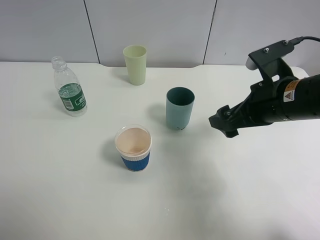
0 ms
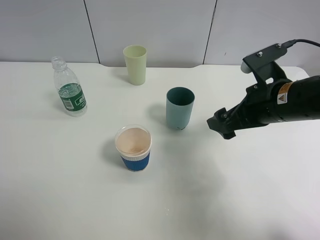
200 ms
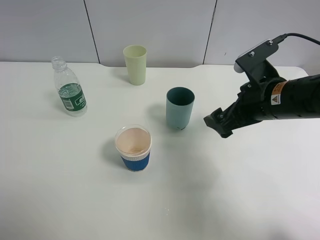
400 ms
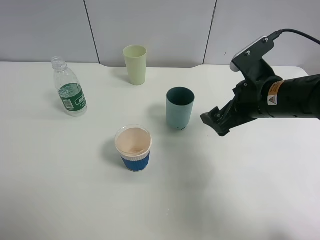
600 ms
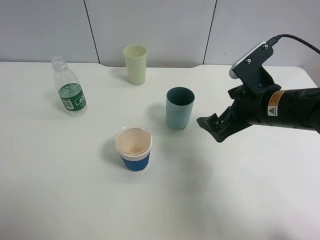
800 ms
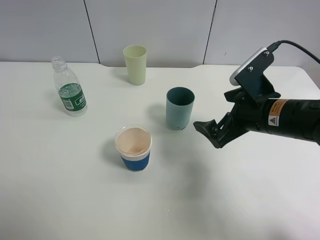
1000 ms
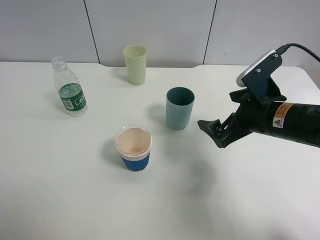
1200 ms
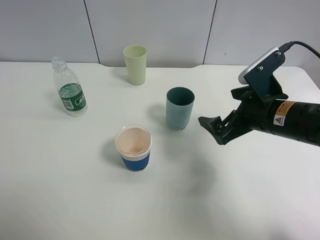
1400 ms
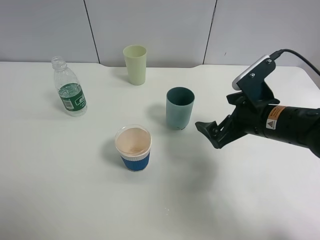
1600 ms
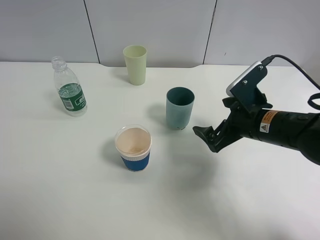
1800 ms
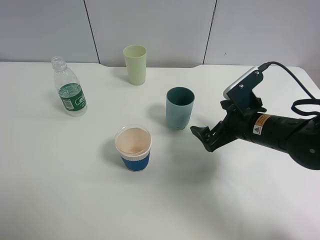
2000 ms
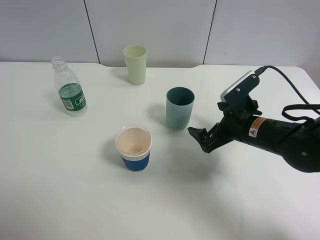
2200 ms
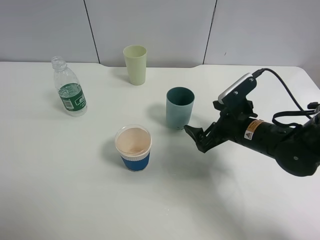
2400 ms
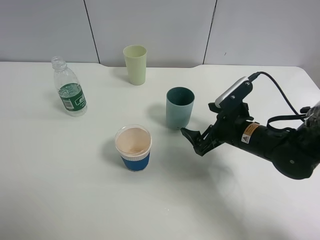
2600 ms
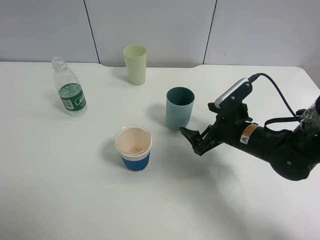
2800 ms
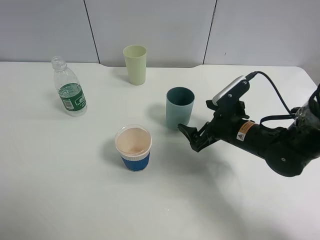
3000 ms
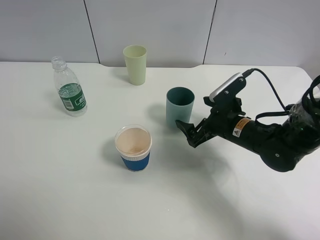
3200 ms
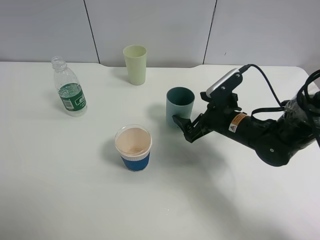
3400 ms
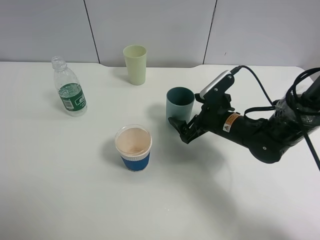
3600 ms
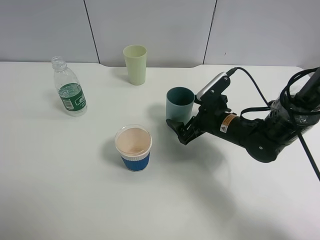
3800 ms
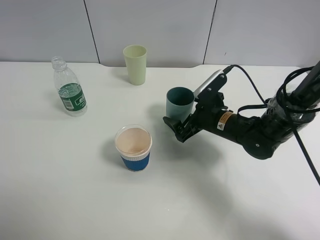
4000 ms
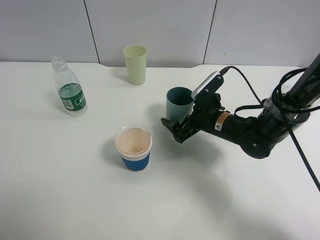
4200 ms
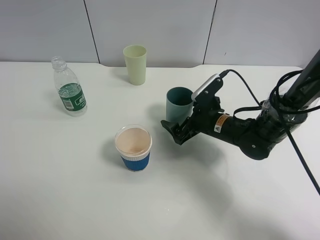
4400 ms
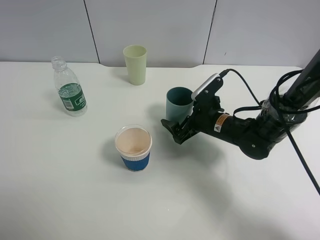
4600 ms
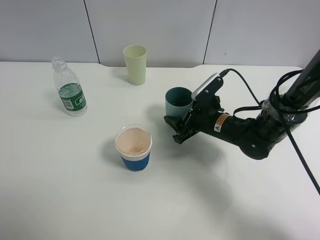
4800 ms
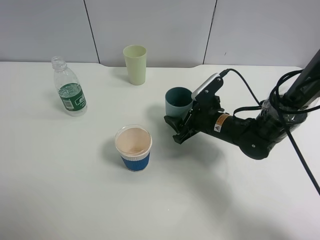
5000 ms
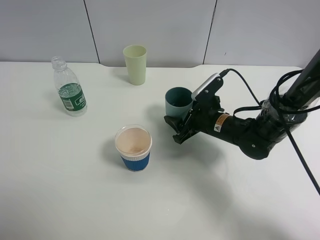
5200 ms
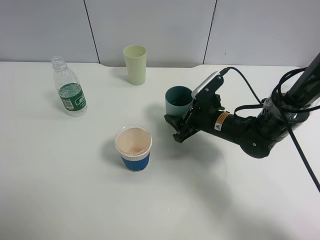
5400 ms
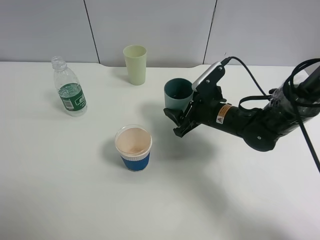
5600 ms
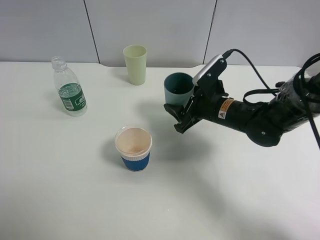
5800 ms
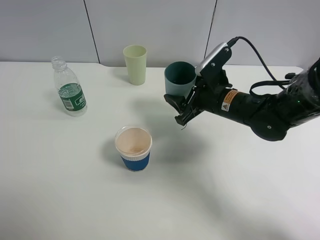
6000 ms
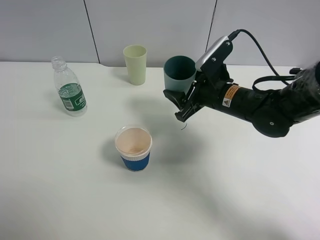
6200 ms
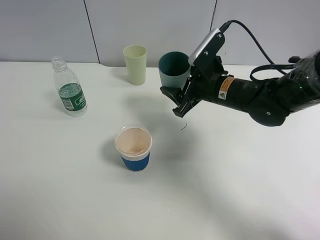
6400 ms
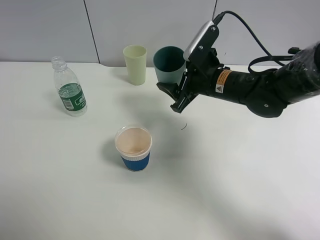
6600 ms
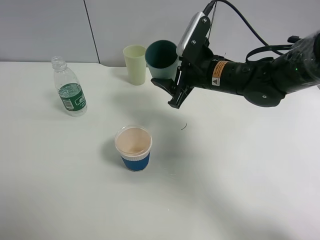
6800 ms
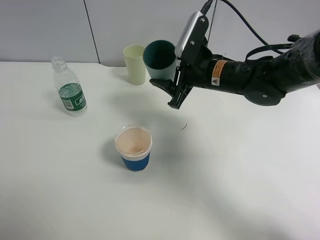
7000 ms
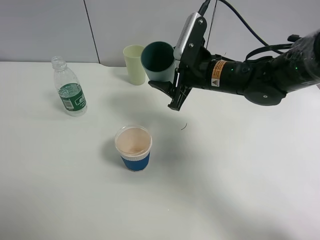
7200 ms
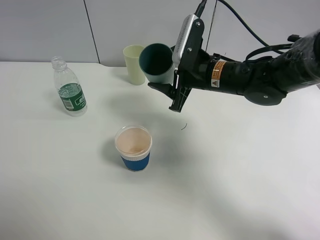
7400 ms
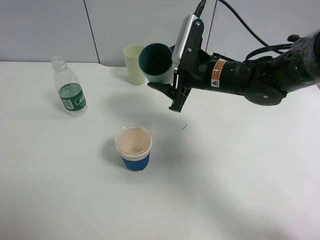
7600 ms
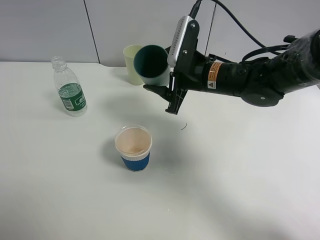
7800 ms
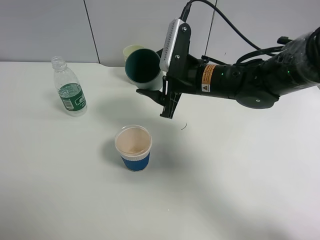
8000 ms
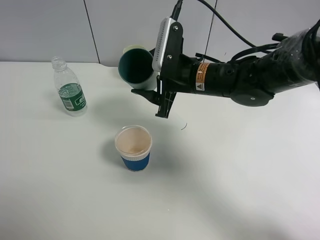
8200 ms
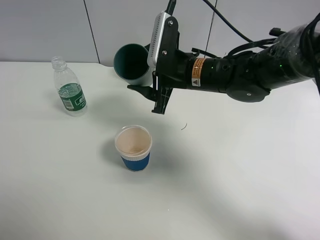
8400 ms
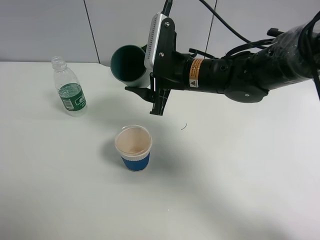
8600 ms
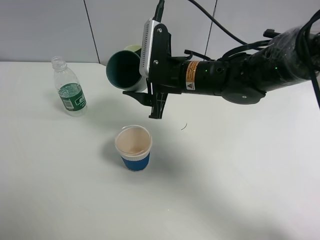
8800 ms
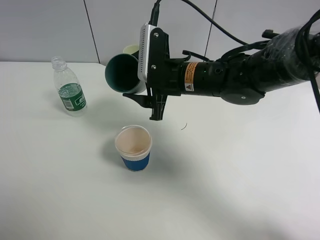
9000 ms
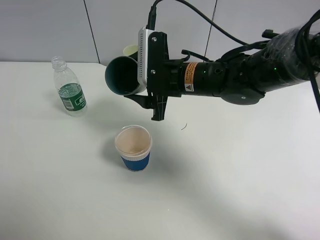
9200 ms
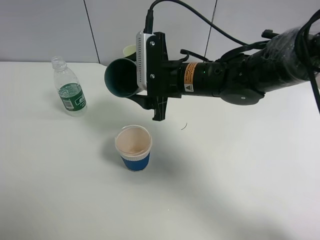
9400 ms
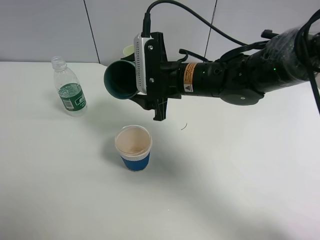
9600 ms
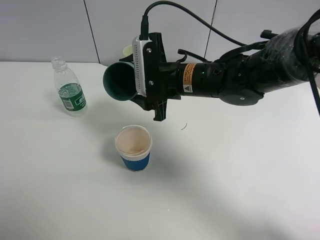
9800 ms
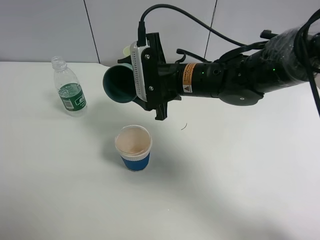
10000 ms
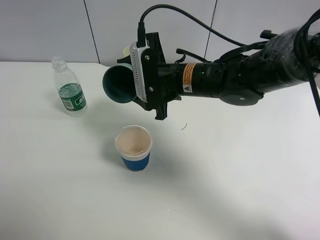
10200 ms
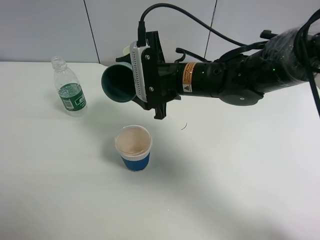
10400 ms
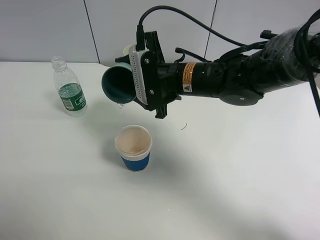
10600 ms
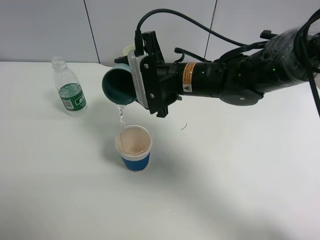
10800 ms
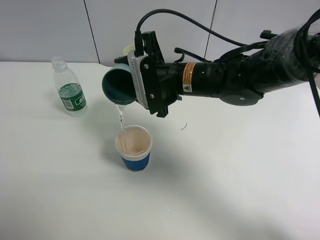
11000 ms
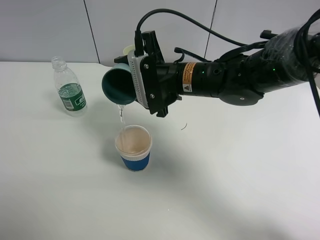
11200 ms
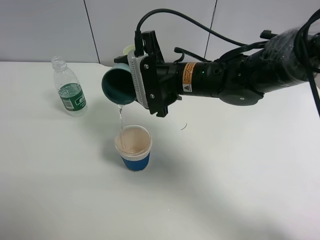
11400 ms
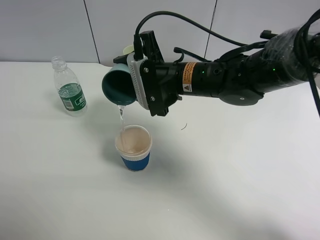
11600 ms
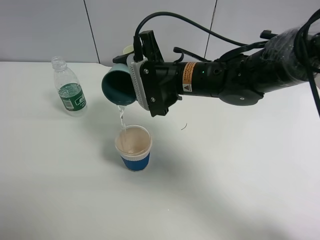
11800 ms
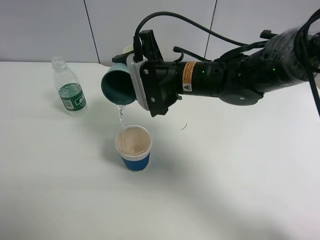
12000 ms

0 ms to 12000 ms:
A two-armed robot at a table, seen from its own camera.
Task of the whole recording: use a clamp to hold the bottle of the drink, pour the beverage into a random cup, then clamp the cup containing the drink and pour the drink into another random cup.
Step, 0 ms to 5600 ms: Pick up the blue plastic cup bottle with right gripper.
0 ms to 1600 ms: The right gripper moves downward, approximately 5 cm.
1600 ms to 3000 ms: The right gripper goes about 5 cm downward.
3000 ms to 4400 ms: The right gripper moves roughly 5 cm.
4400 ms to 6000 ms: The right gripper shifts approximately 5 cm upward, and closes.
6000 ms to 7600 ms: The right gripper shifts by about 5 cm.
7600 ms to 9000 ms: The right gripper shifts approximately 5 cm to the left.
10400 ms to 12000 ms: The grippers make only small movements.

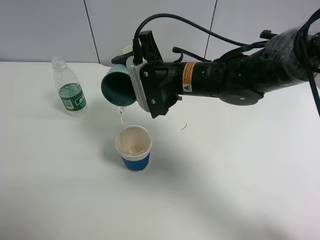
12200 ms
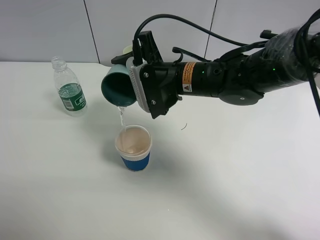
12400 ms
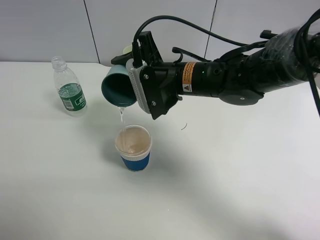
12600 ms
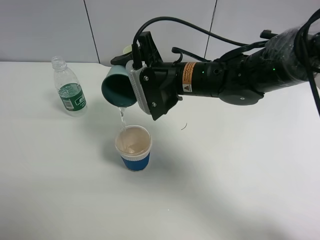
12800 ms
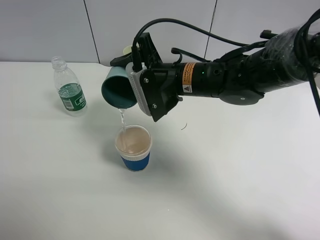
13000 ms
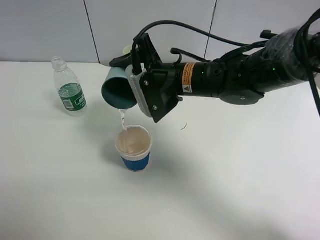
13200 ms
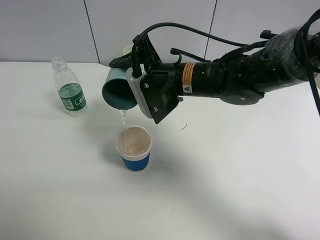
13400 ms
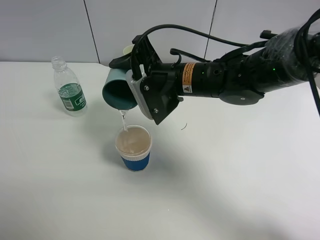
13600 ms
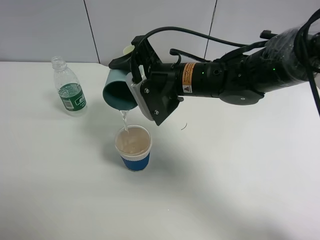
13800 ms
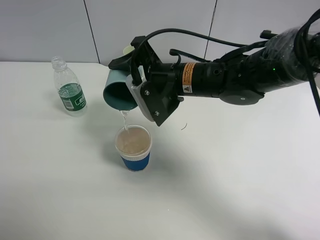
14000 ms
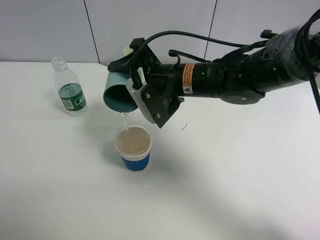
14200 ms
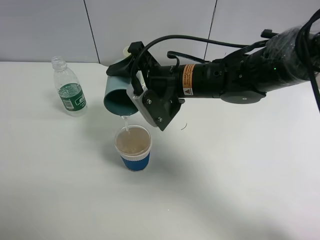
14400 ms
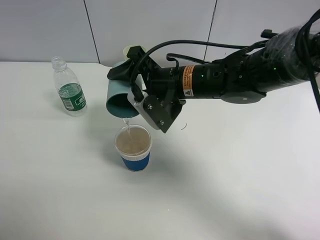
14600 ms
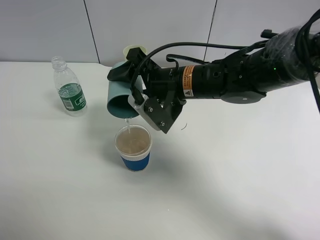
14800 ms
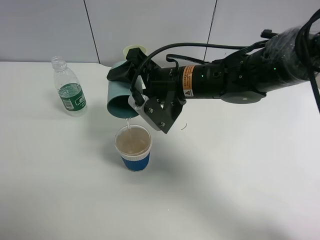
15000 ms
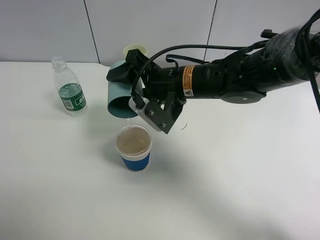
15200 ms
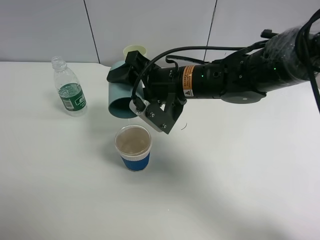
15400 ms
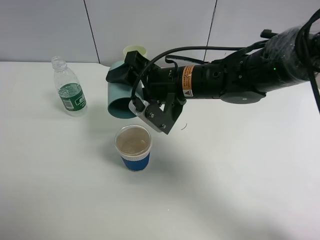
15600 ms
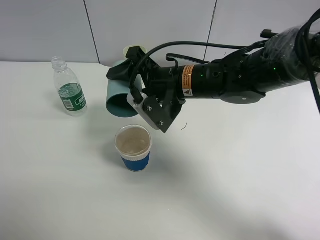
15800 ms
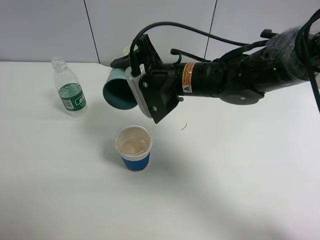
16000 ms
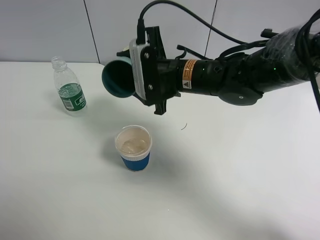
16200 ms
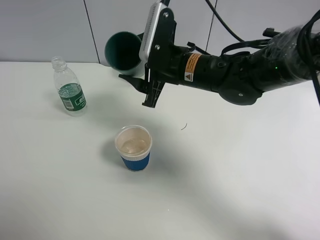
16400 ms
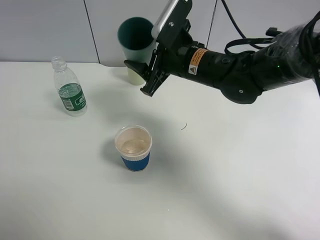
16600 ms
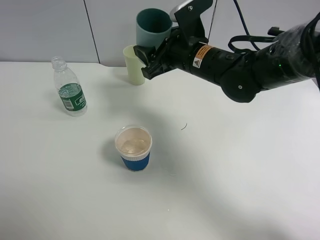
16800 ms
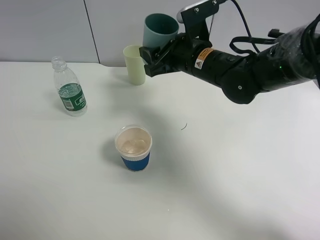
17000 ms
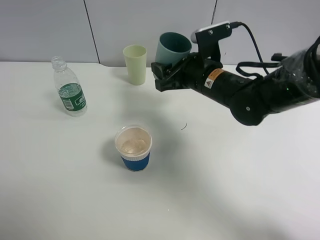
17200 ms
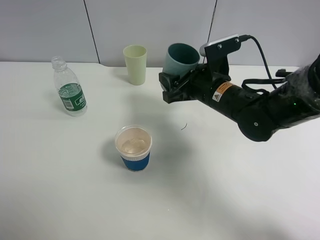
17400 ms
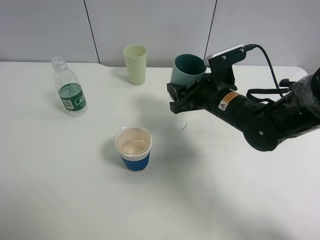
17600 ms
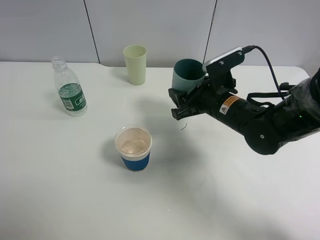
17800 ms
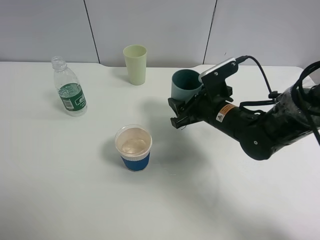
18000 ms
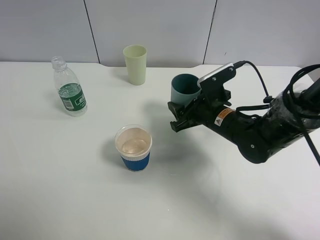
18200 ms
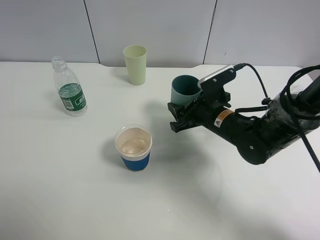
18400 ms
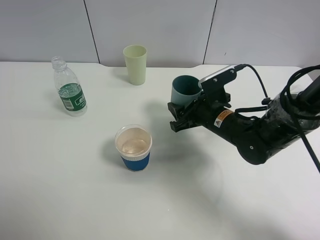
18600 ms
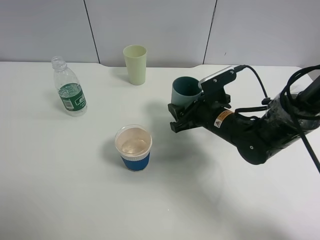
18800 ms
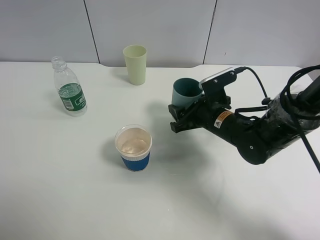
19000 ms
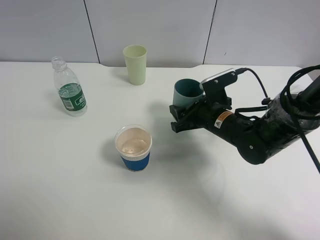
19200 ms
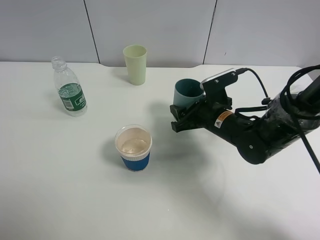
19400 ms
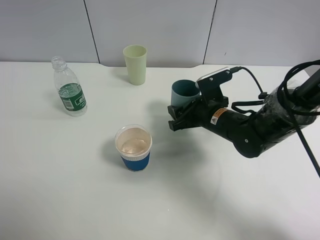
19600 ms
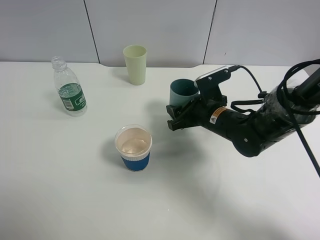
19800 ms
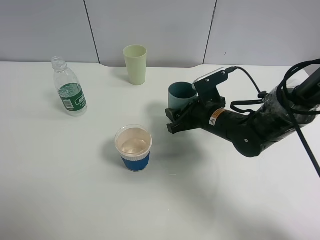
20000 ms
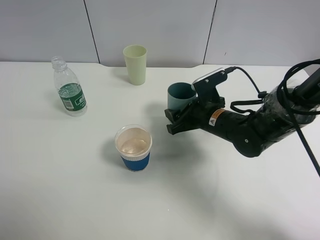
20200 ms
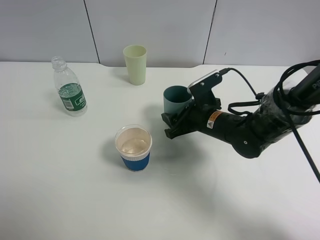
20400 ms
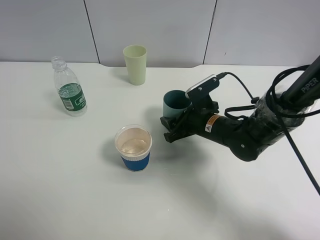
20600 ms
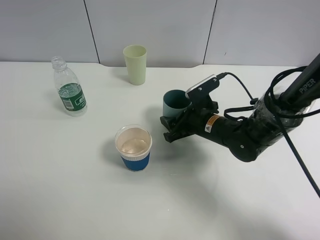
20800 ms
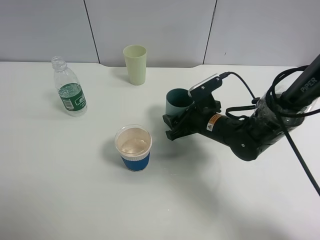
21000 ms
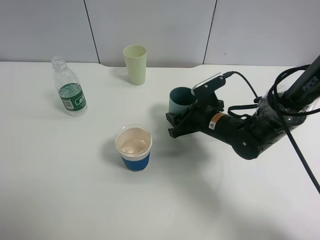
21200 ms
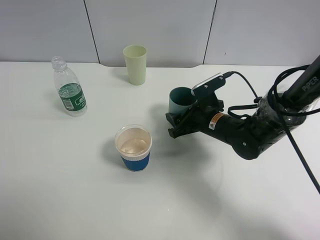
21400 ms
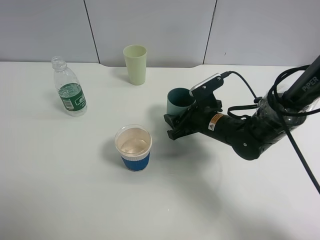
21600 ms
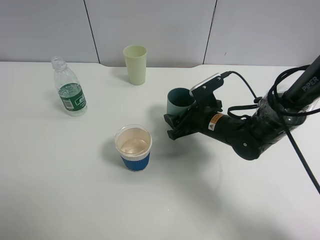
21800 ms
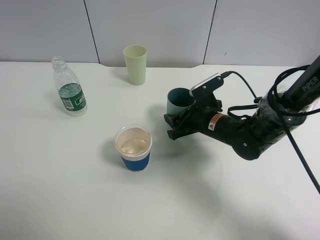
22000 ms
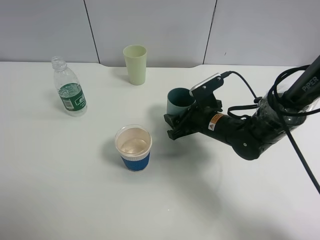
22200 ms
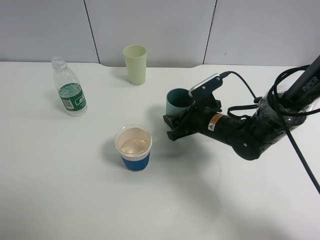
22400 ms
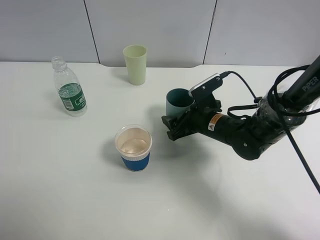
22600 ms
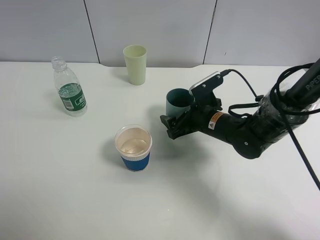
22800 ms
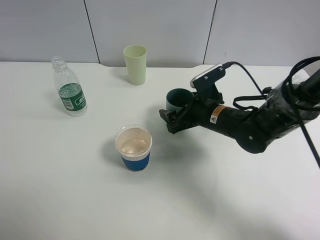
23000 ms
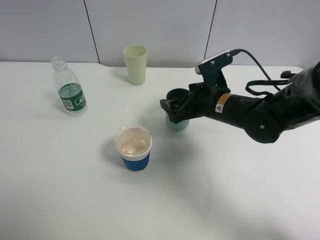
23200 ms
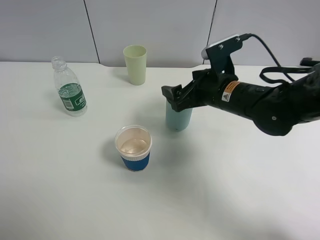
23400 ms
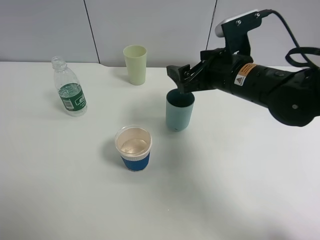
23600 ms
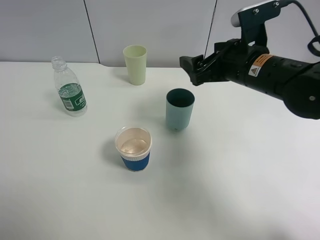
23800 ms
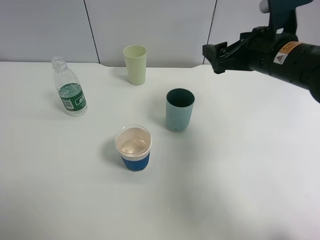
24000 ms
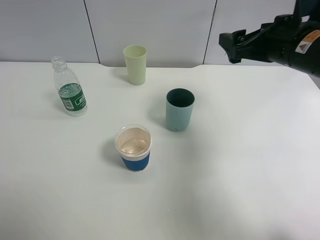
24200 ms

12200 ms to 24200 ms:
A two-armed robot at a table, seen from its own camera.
Task of the whole recording: use a clamp to hold the bottle of the drink, pour the beverage into a random cup, then clamp the cup containing the drink and pour the drink into another random cup.
Step, 12200 ms to 16200 ms: Pour water into the paper cup with right gripper.
Step, 16400 ms to 22600 ms: Place the blue plastic cup on the table with right gripper.
12200 ms to 13800 ms: The grippers make only small movements.
13800 ms to 15200 ms: The grippers move only a little.
16600 ms to 18200 ms: The right gripper goes some 10 cm downward and to the right.
18200 ms to 21200 ms: There are only small adjustments of the grippers.
21200 ms to 22600 ms: The right gripper opens.
22600 ms to 24200 ms: The right gripper shifts some 20 cm upward and to the right, and opens its fingers.
